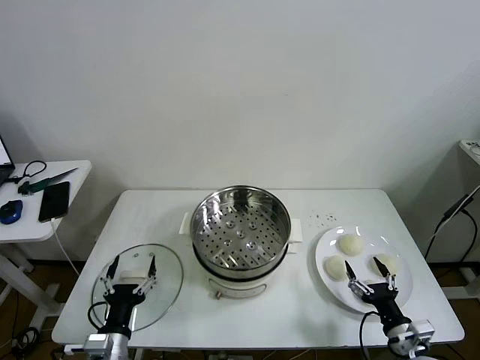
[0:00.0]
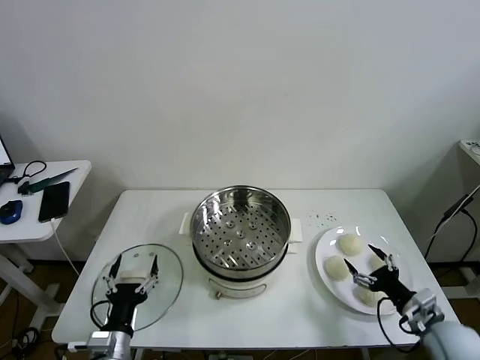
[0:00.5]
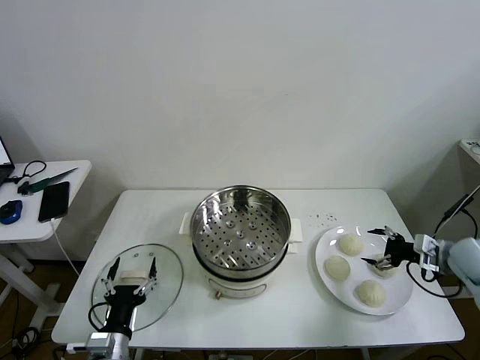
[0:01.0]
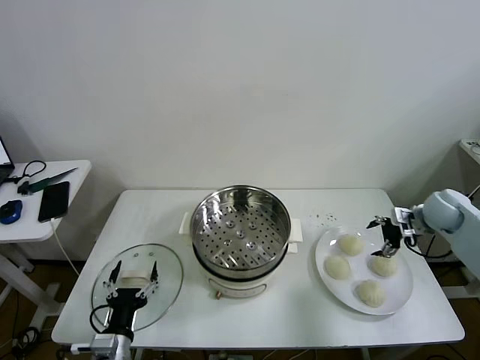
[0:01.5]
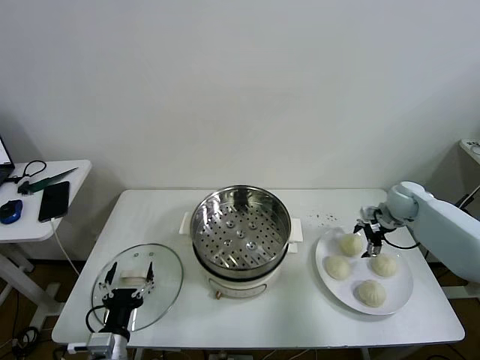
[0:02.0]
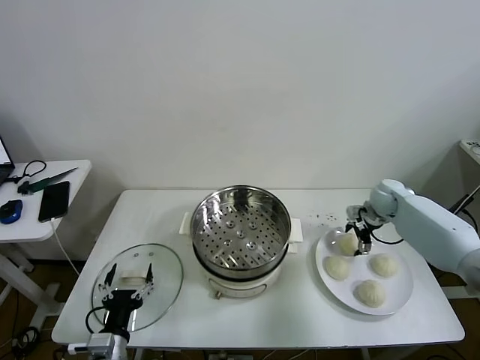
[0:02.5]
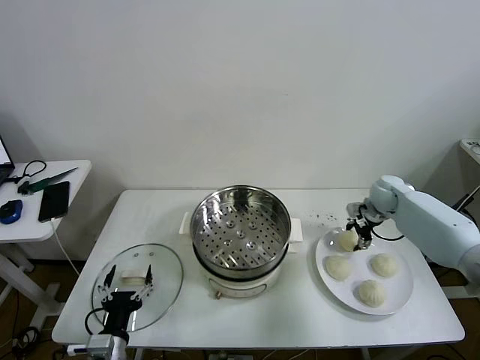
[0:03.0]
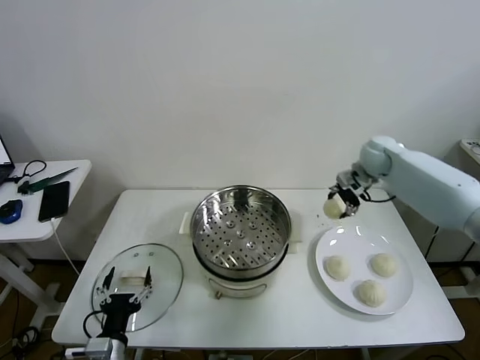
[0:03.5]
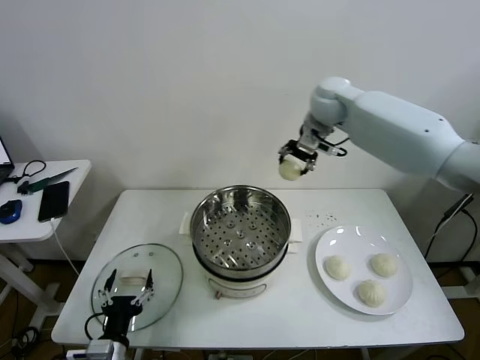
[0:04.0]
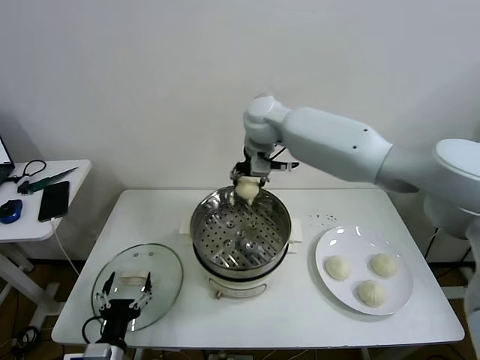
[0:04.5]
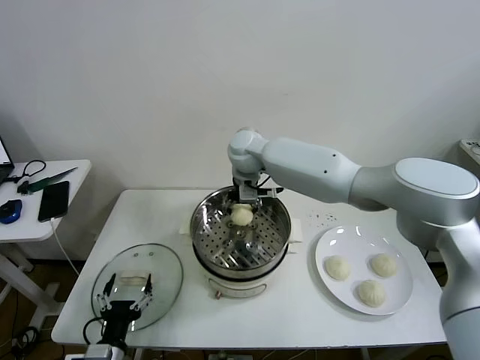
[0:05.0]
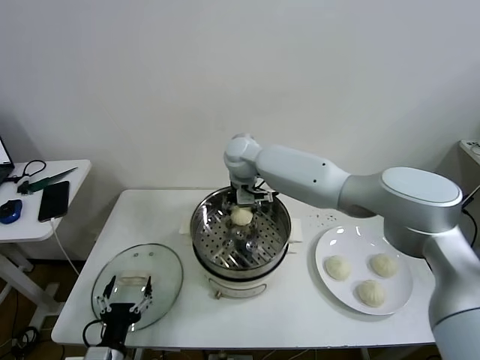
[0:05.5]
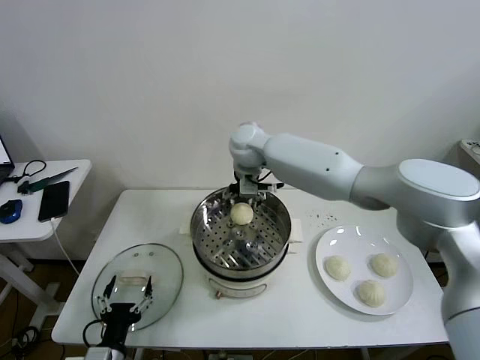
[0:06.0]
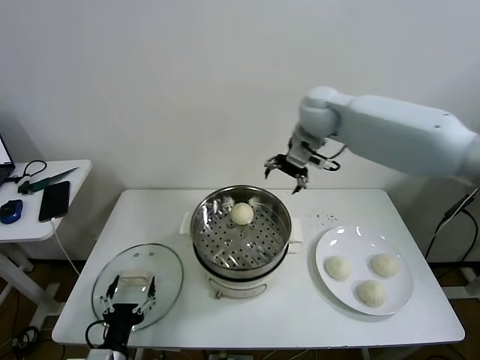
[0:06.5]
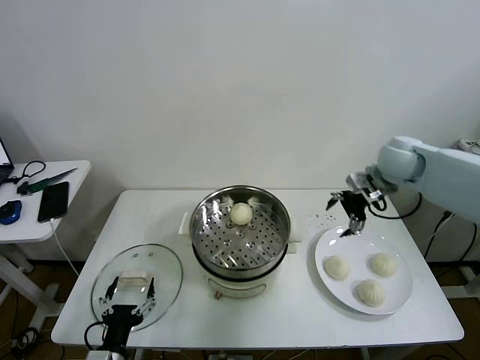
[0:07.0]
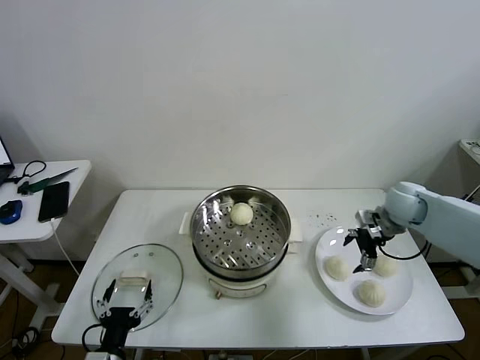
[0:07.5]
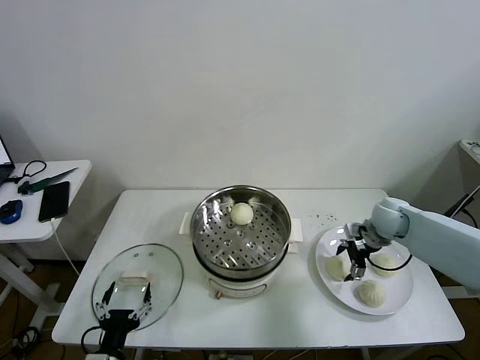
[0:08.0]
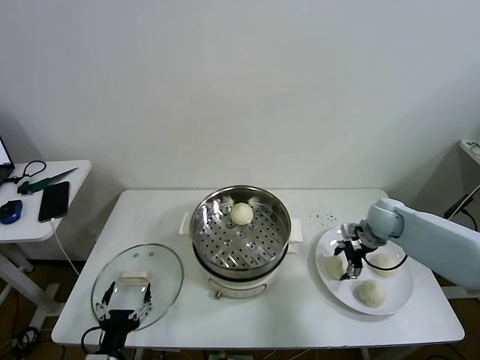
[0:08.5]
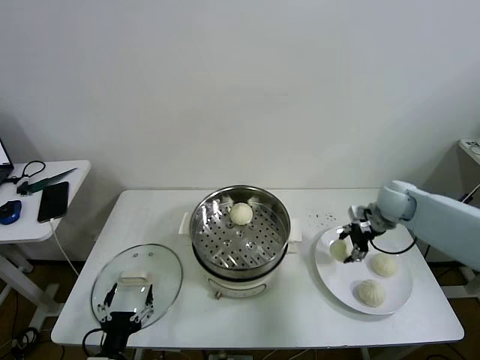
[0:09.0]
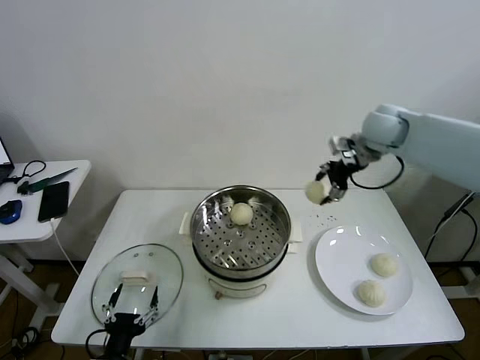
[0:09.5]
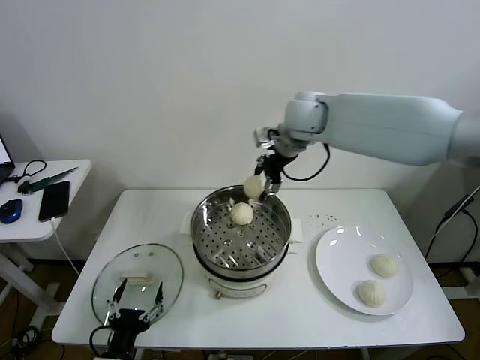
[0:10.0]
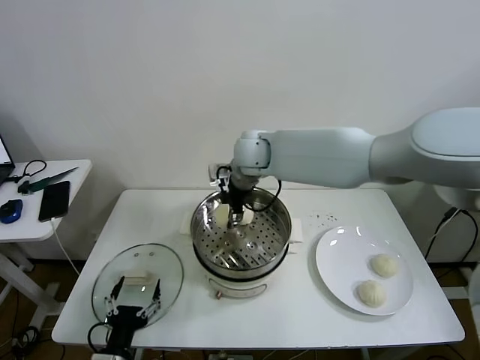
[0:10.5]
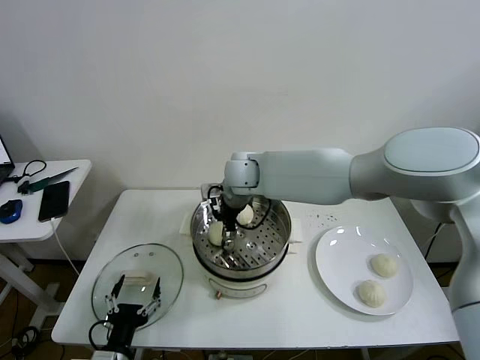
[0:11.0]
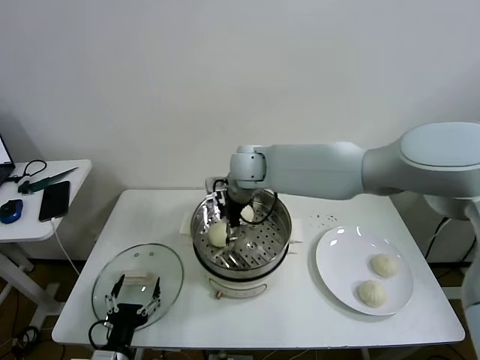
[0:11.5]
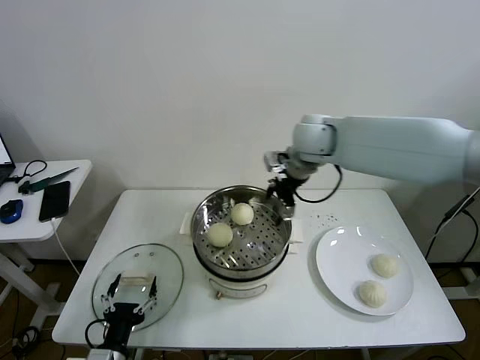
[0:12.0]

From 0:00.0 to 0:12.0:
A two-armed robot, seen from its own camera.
Task of the whole recording: take steamed baozi put them in steamer then cover it.
Step, from 0:00.0 to 0:02.5: Grasp the baozi in the plate with right gripper.
Step, from 0:03.0 to 0:05.5: Place the baozi on the steamer with right gripper.
Step, from 0:06.0 to 0:08.5: Grasp the baozi in the plate with right gripper.
Step, from 0:09.0 to 0:11.0: Place the baozi on the steamer with right gripper.
From 0:02.0 to 0:04.0: The right gripper moves to the left and upward, roughly 35 cm, and closes its fingers.
From 0:04.0 to 0:06.0: The right gripper goes approximately 15 cm to the left and downward, and opens its fingers.
From 0:06.0 to 0:08.0: The right gripper goes some 40 cm to the right and downward.
From 0:08.0 to 0:10.0: The right gripper is displaced to the left and upward by some 35 cm, and closes up.
From 0:10.0 to 0:12.0: The right gripper moves to the right, approximately 10 cm, and opens its fingers.

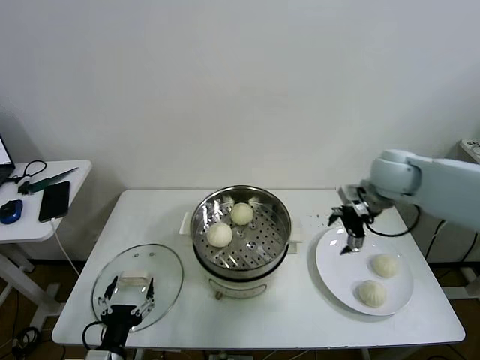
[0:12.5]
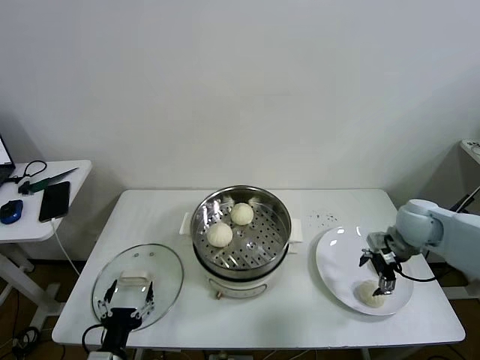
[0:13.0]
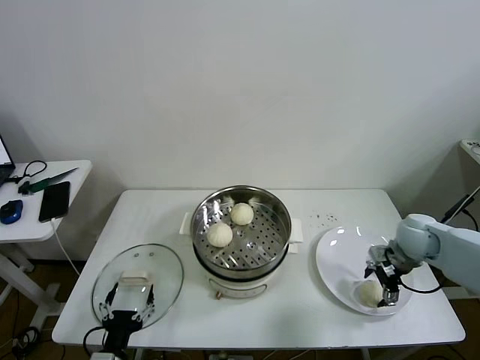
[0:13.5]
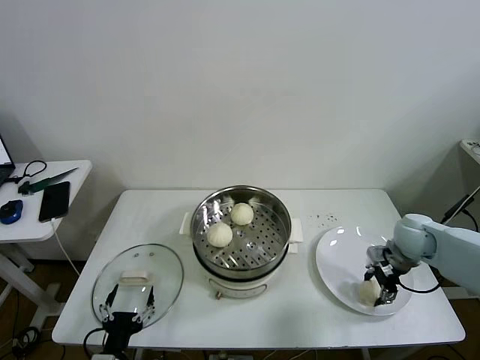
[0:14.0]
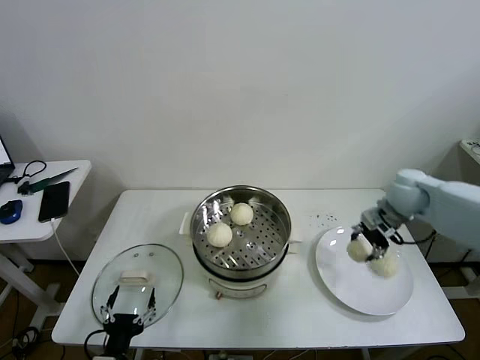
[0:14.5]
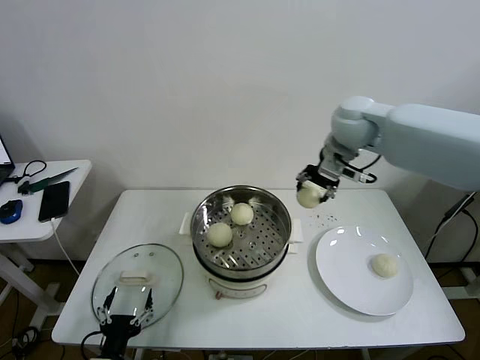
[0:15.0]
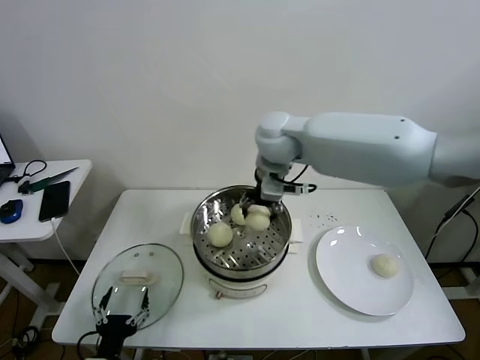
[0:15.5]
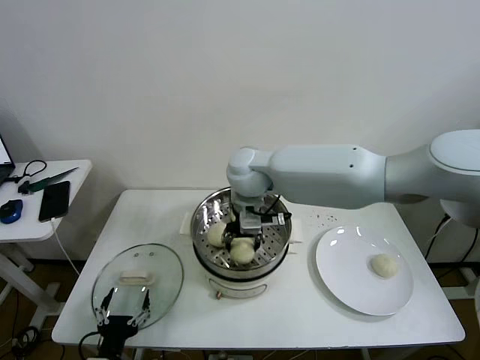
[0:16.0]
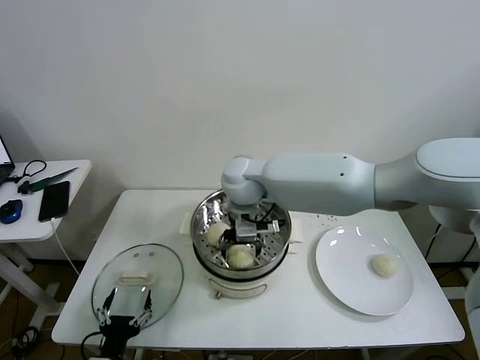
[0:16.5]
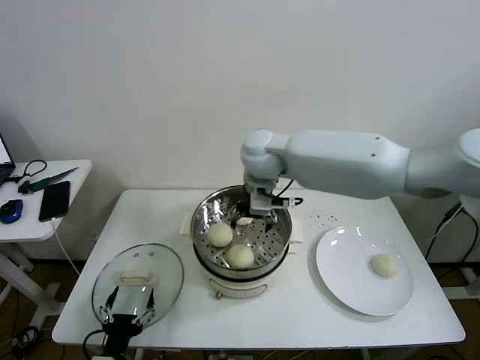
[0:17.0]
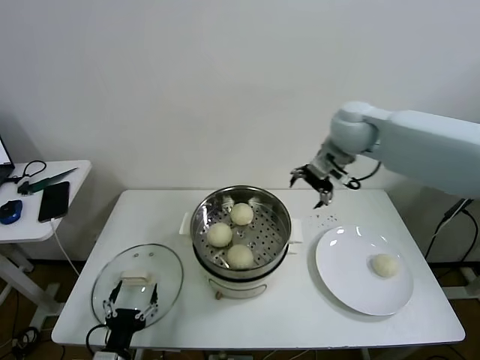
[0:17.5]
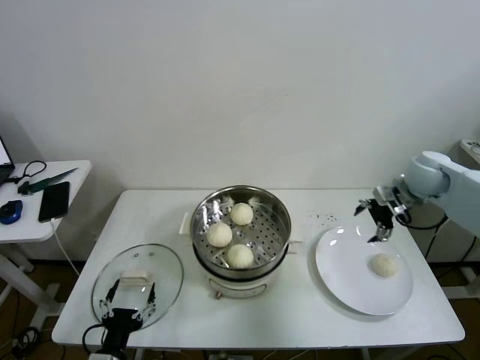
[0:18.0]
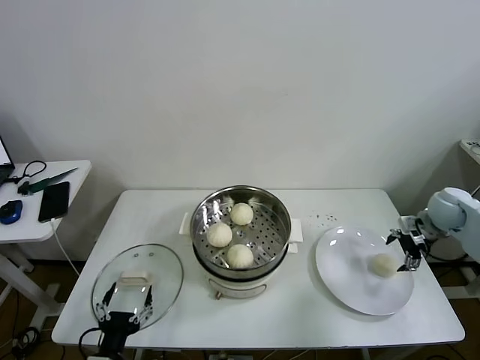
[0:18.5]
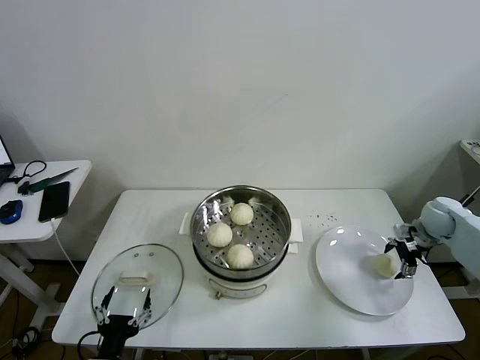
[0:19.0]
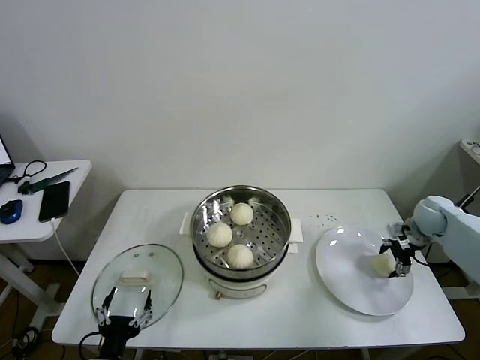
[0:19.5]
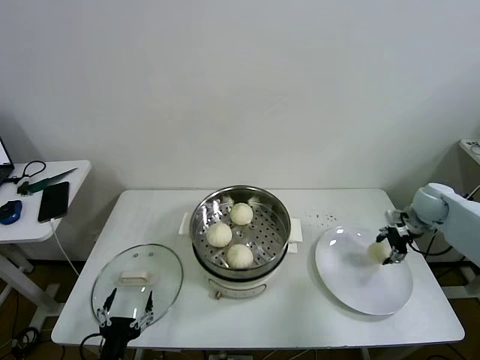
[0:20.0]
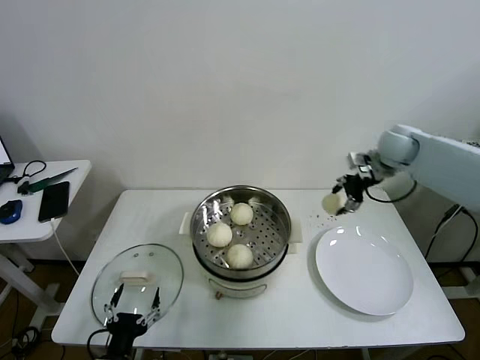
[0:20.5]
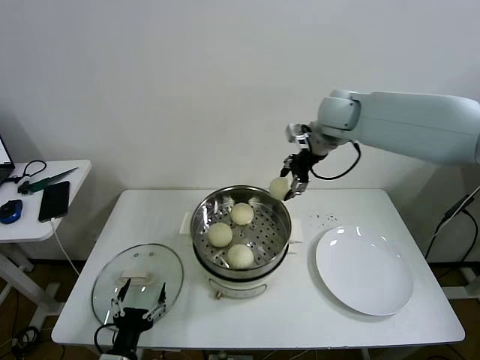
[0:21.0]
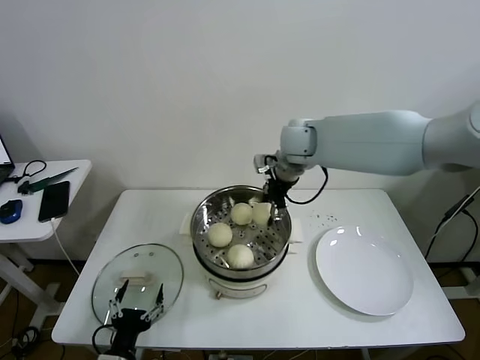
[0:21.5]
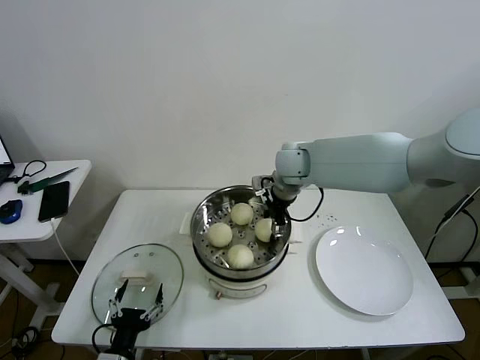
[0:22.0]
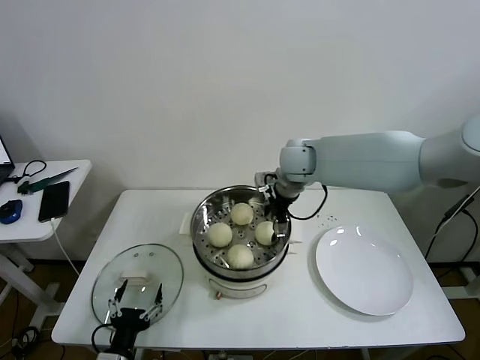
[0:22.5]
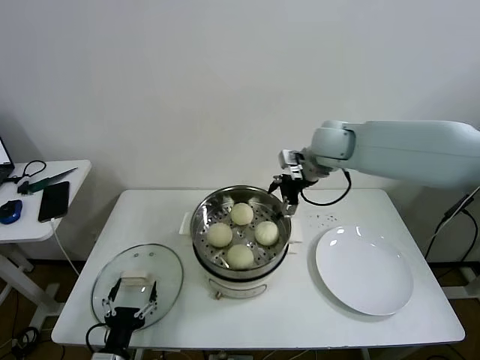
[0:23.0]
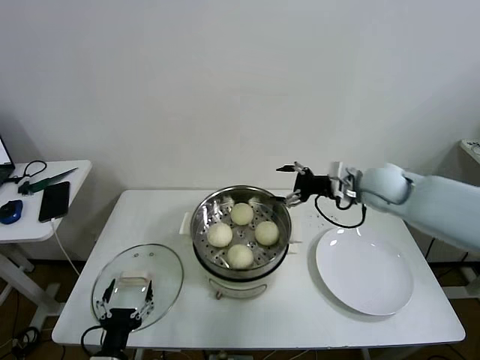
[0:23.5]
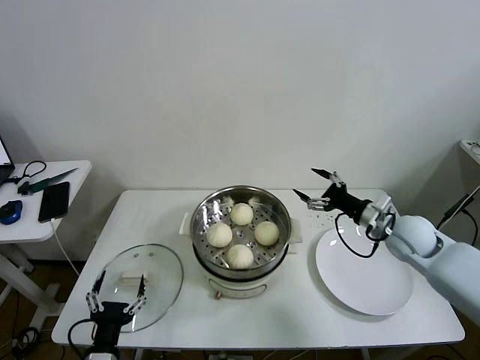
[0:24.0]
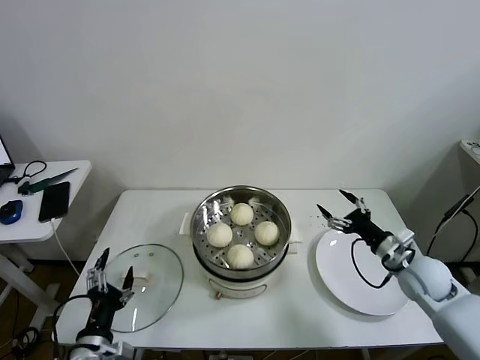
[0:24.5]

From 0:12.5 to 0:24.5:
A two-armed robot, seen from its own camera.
Task of the whole recording: take steamed baozi put them in steamer then cover it.
Step, from 0:12.5 to 0:14.0: Grasp the baozi in the plate with right gripper.
Step, from 0:14.5 to 0:16.5: Place the baozi on the steamer with right gripper.
Step, from 0:17.0 to 0:19.5: Grasp the baozi in the plate with right gripper.
Step, from 0:20.0 to 0:22.0: Place the baozi on the steamer with right gripper.
From 0:12.5 to 0:14.5: The right gripper goes downward and returns, roughly 15 cm each way, and closes.
From 0:14.5 to 0:16.5: The right gripper moves to the left, roughly 35 cm, and opens its fingers.
From 0:16.5 to 0:18.5: The right gripper is displaced to the right by roughly 50 cm.
From 0:18.5 to 0:20.5: The right gripper travels to the left, upward and forward by about 25 cm, and closes.
From 0:20.5 to 0:22.5: The right gripper is displaced to the left by some 20 cm, and opens its fingers.
From 0:22.5 to 0:24.5: The left gripper goes approximately 5 cm upward. The right gripper travels to the right, backward and downward by about 40 cm.

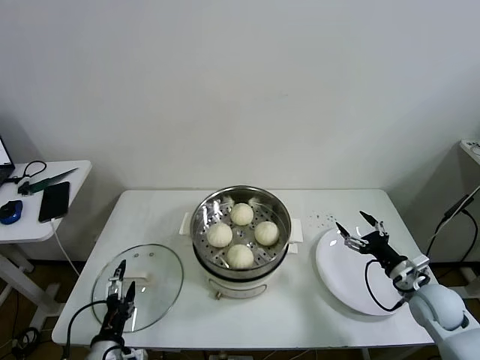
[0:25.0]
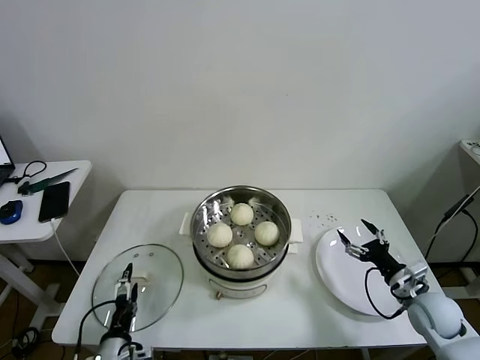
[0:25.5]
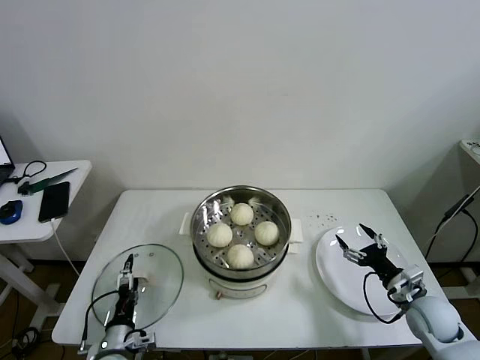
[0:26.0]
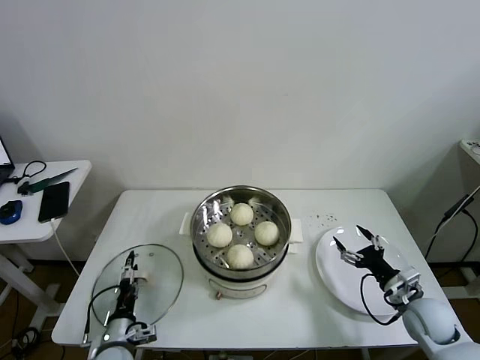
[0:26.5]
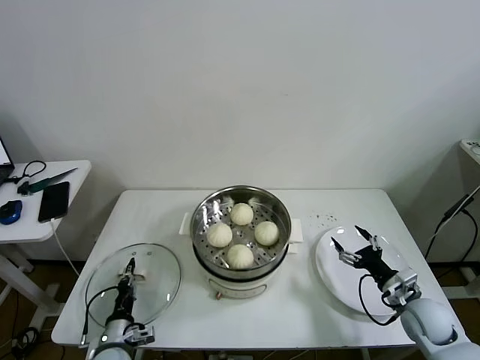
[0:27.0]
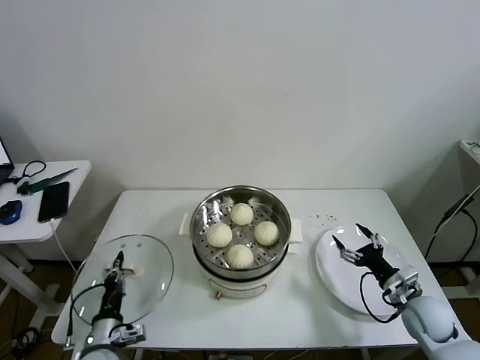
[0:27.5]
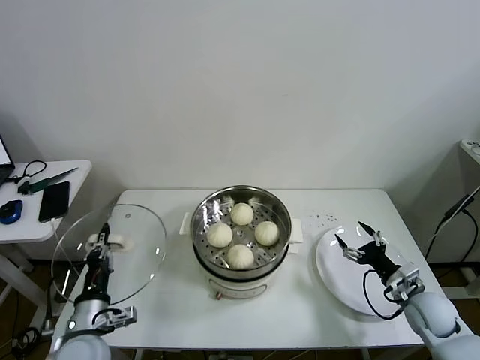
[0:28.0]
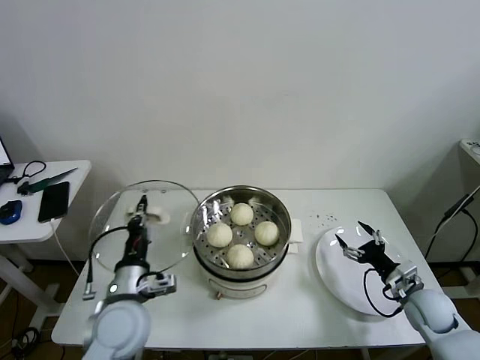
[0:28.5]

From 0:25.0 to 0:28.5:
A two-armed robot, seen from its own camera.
Task of the whole recording: take steamed baozi put them in steamer then cover it.
Step, from 0:25.0 to 0:27.0: Grasp the pot lid with left gripper.
From 0:25.0 to 0:27.0: The left gripper is displaced downward and forward by roughly 10 cm, and closes.
From 0:27.0 to 0:28.5: The left gripper goes about 20 cm upward and to the right.
